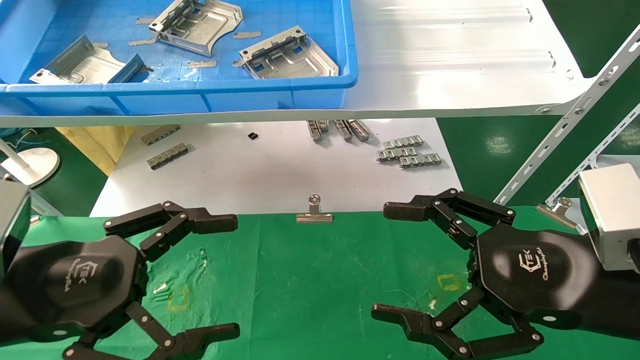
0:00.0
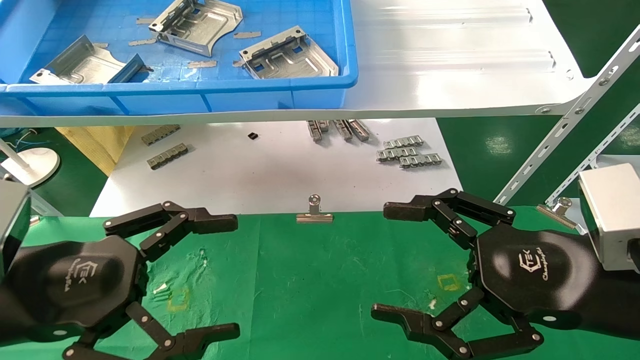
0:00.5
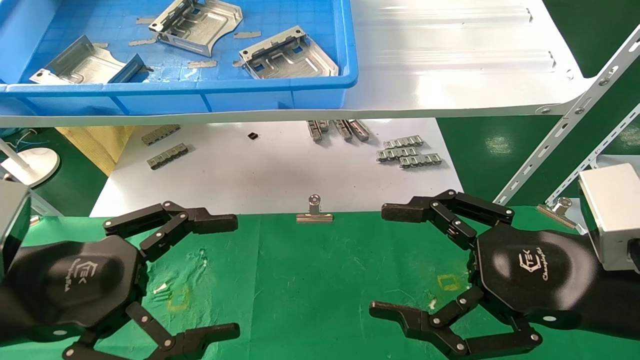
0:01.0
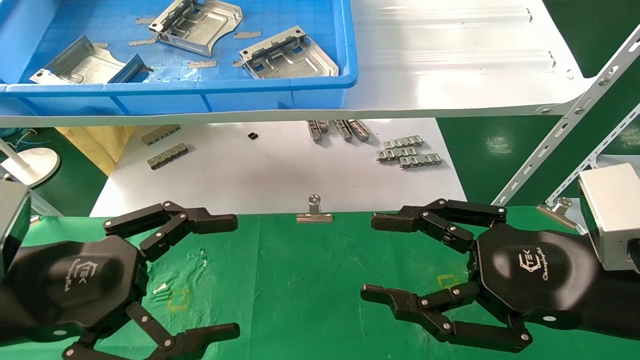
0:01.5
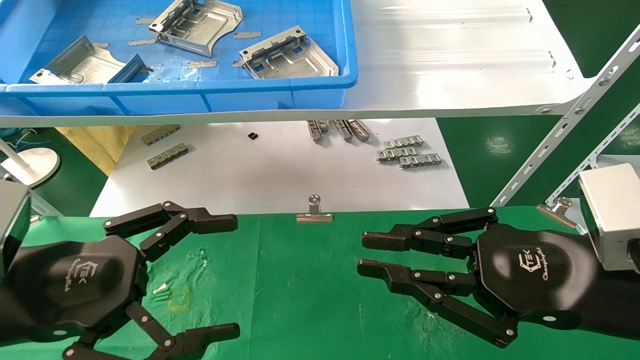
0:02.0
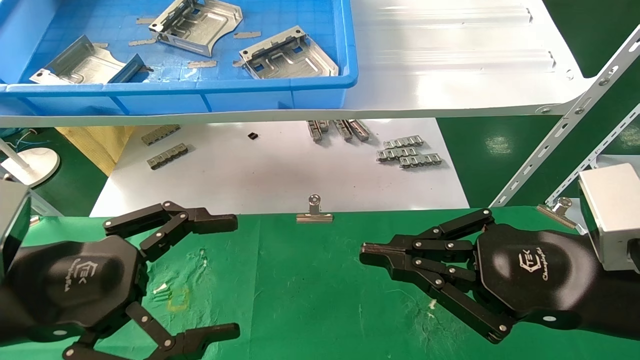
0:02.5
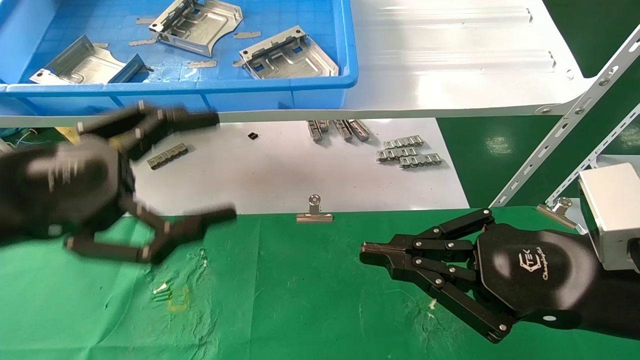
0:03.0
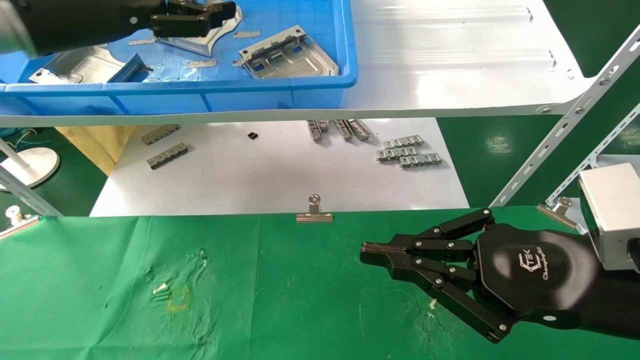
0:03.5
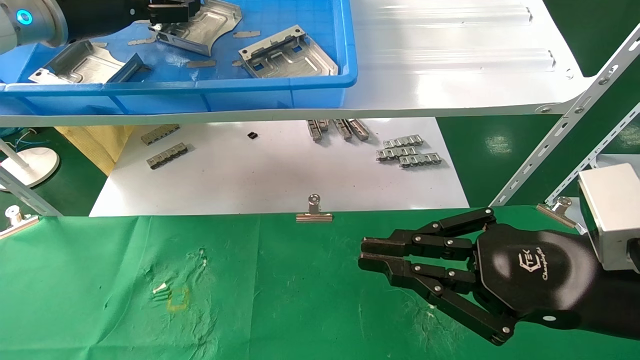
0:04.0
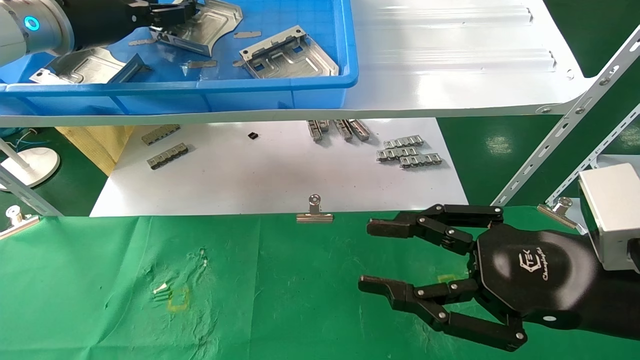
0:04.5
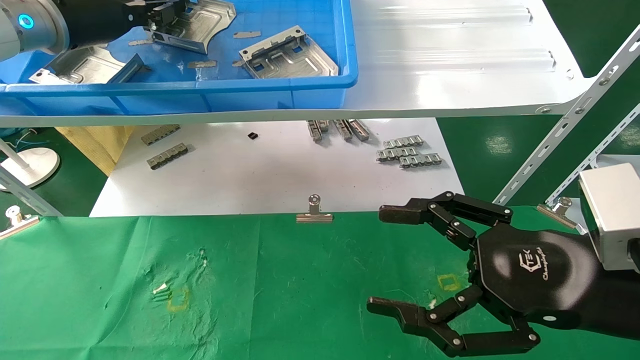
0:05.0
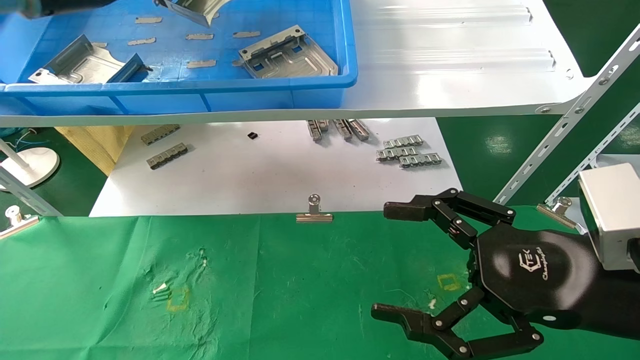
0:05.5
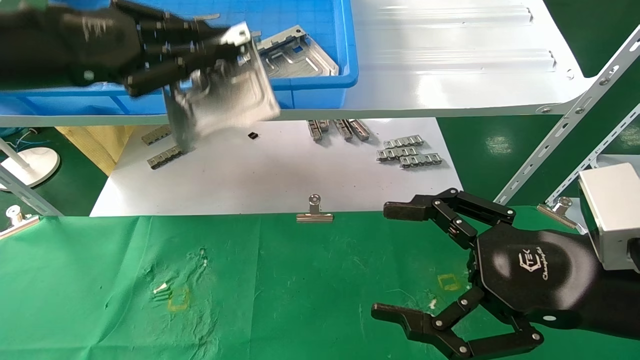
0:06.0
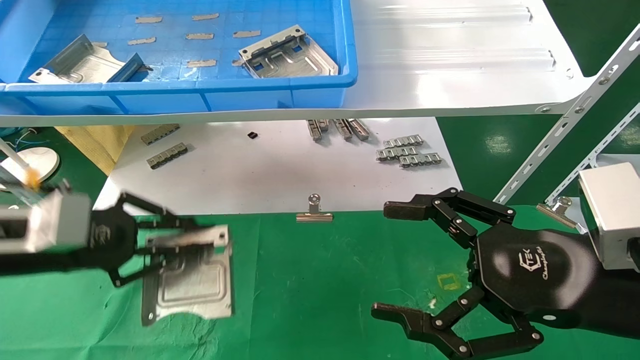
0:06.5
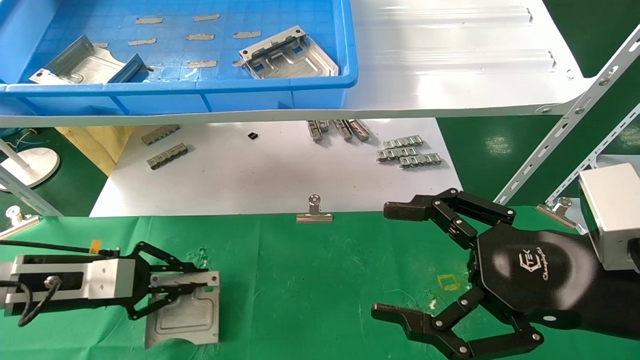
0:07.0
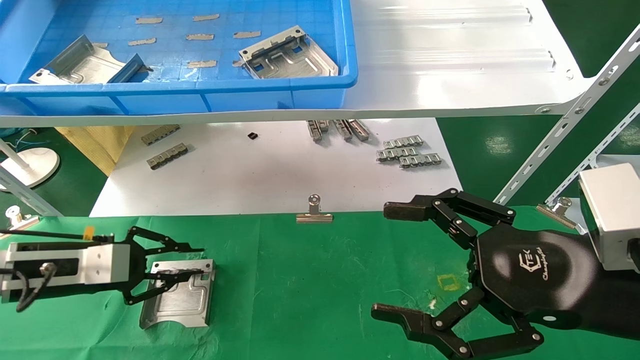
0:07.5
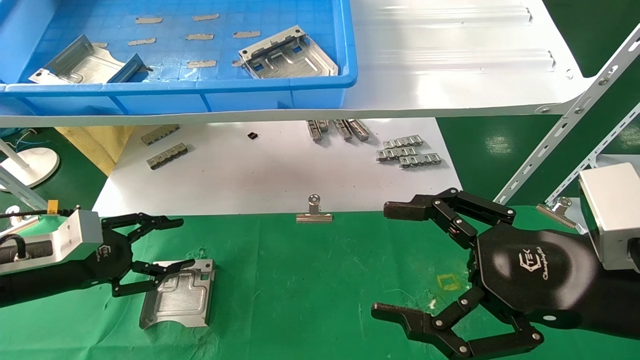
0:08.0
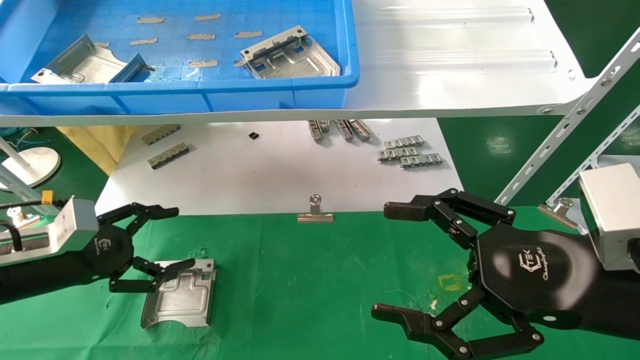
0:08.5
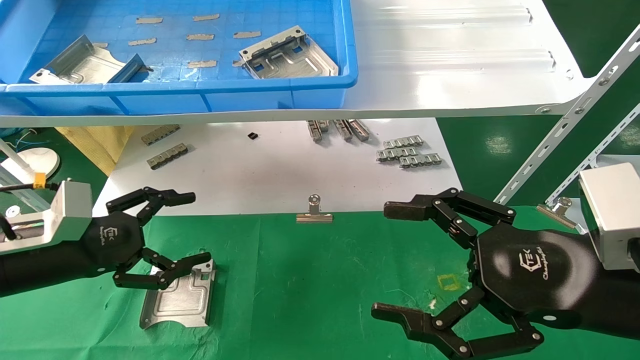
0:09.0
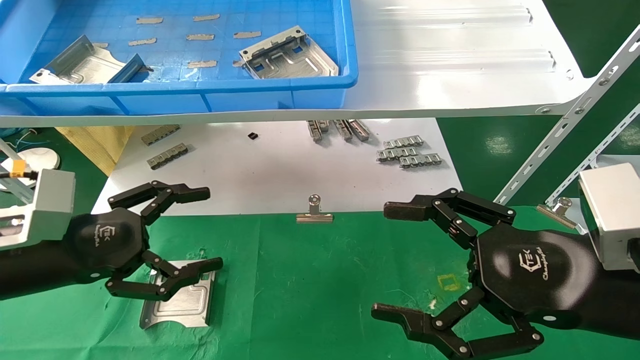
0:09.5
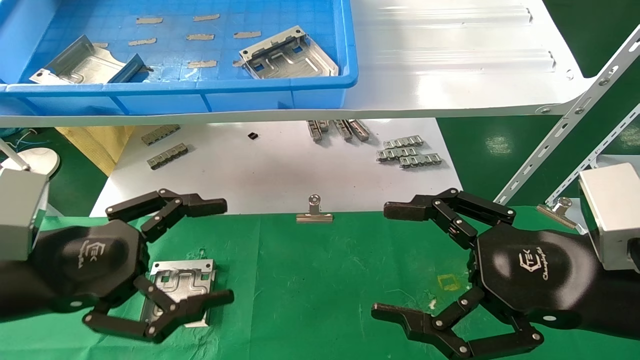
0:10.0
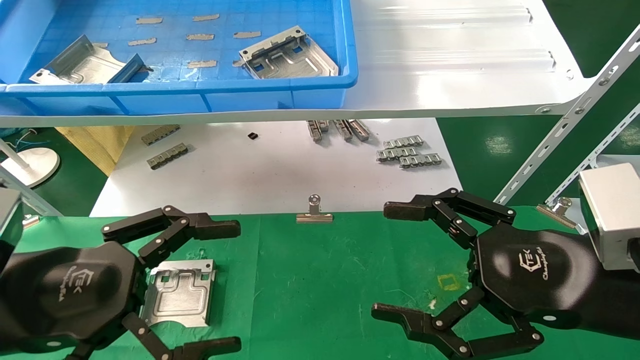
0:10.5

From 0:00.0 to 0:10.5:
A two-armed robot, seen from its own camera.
Task of the whole recording: use the mechanical arm to pick up the parts and place them on the table.
Step, from 0:03.5 to 0:05.0: Pick up the hard drive bracket from the feeding area.
Step, from 0:05.5 to 0:07.5: Place the hard drive bracket into the box.
From 0:00.0 to 0:02.0: The right gripper closes up.
From 0:02.0 to 0:04.0: The left gripper heads forward and upward, covering about 30 cm.
From 0:04.0 to 0:06.5: The left gripper is displaced downward and backward by about 25 cm, and closes up. Meanwhile the right gripper opens up.
From 0:06.5 to 0:08.5: The left gripper shifts approximately 5 cm downward, and opens up.
From 0:08.5 to 0:10.5: The left gripper is displaced backward, to the right and upward by some 20 cm.

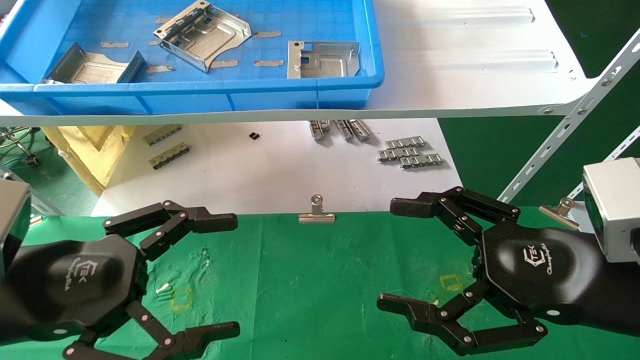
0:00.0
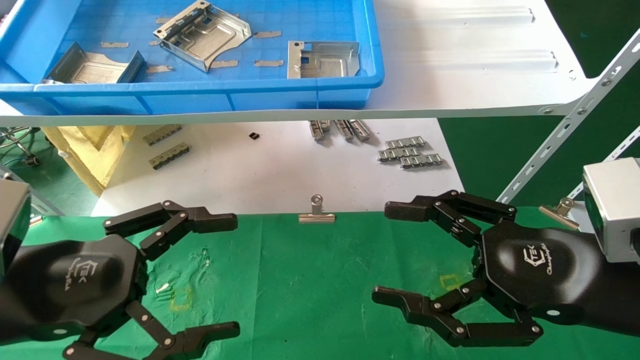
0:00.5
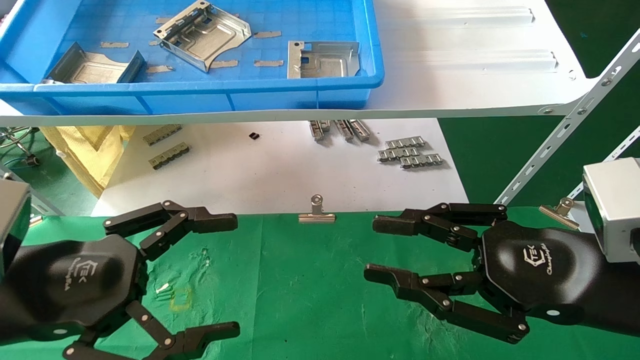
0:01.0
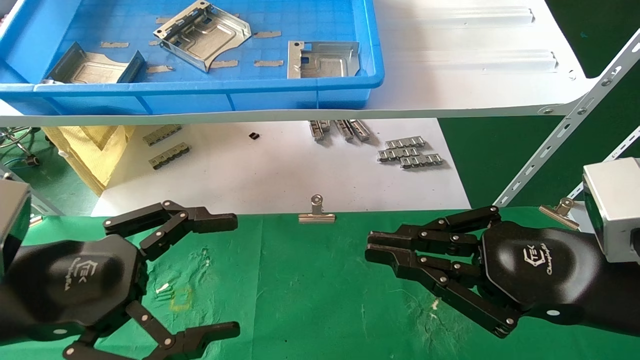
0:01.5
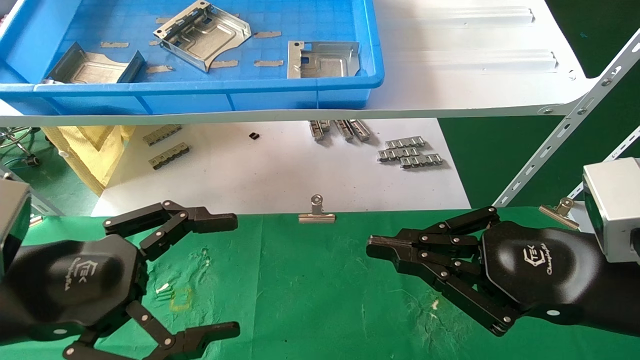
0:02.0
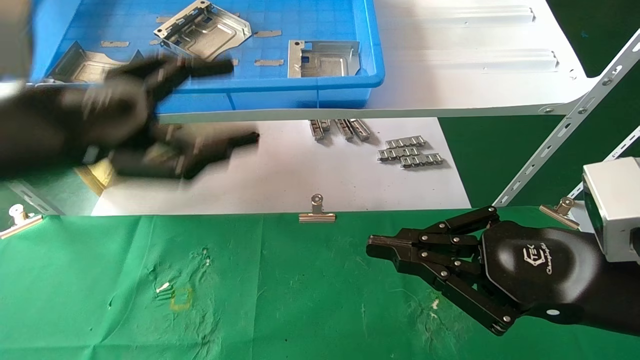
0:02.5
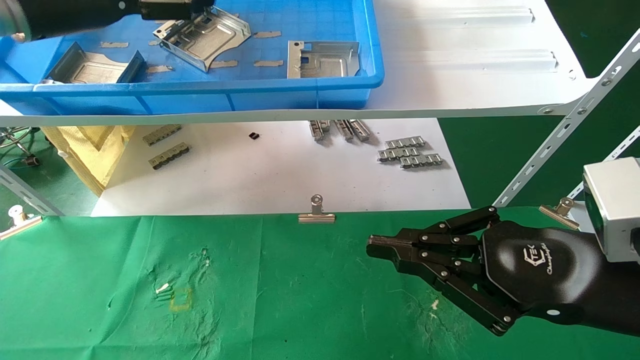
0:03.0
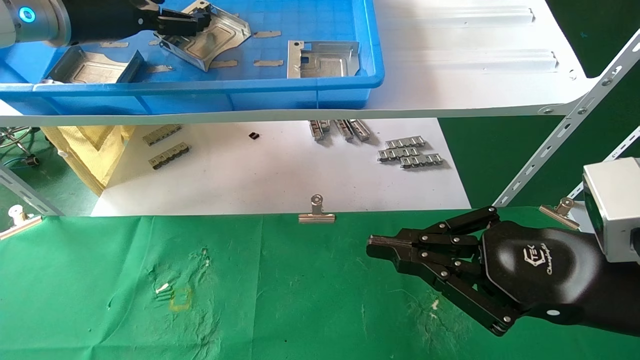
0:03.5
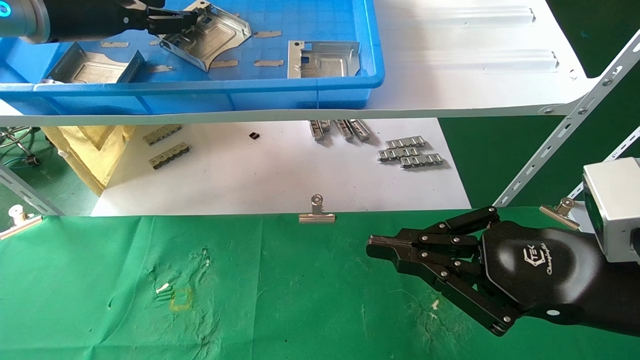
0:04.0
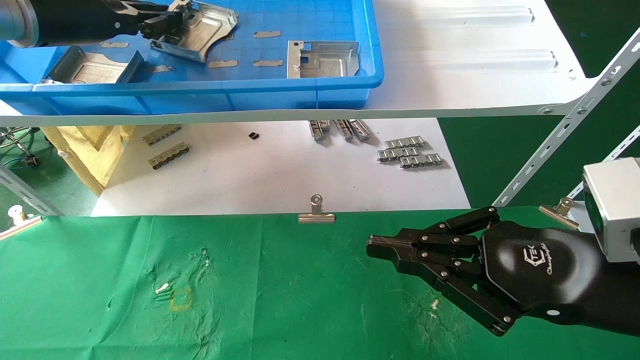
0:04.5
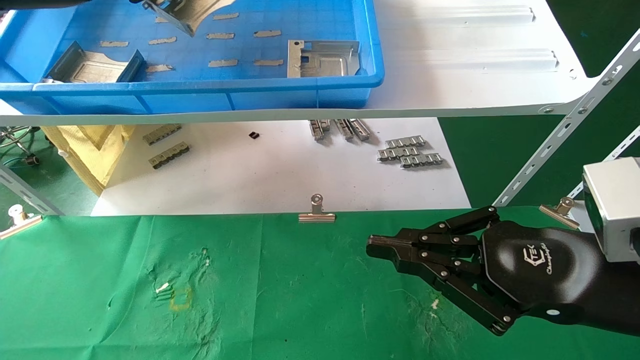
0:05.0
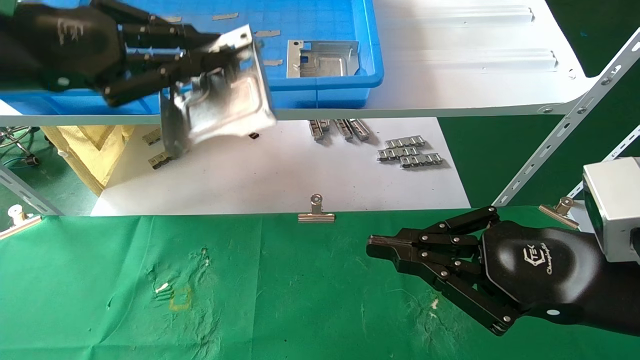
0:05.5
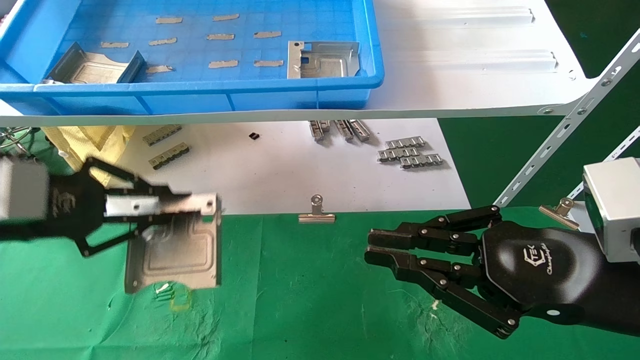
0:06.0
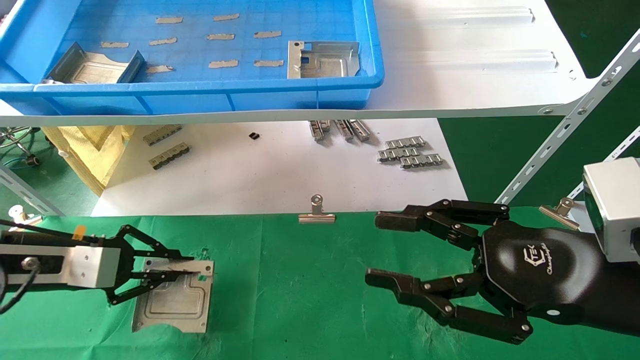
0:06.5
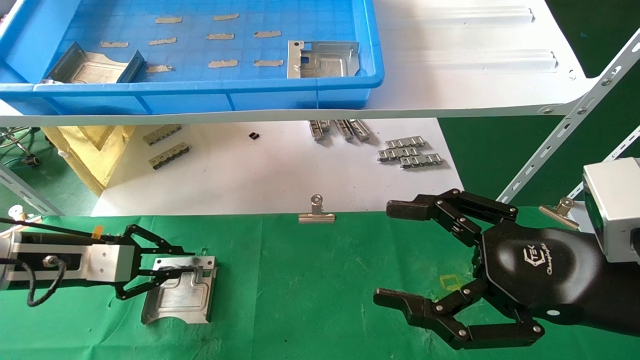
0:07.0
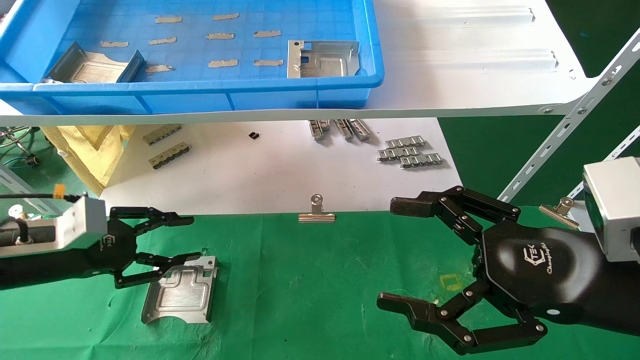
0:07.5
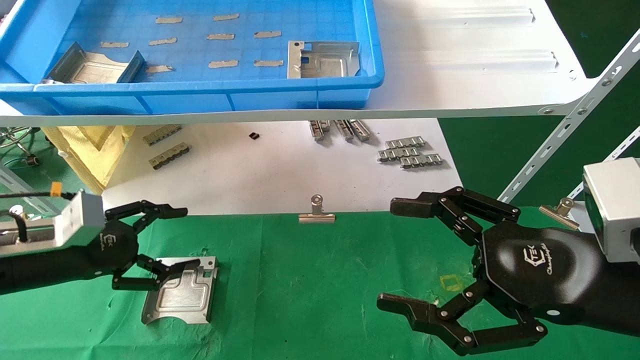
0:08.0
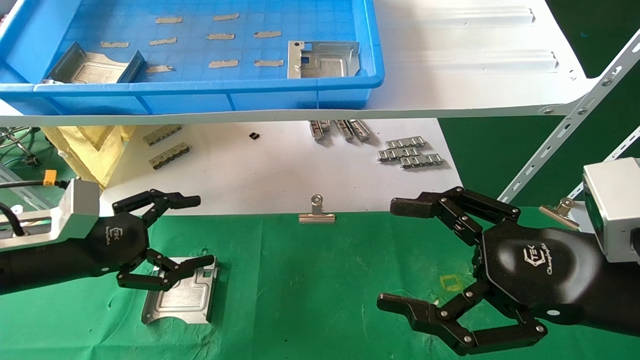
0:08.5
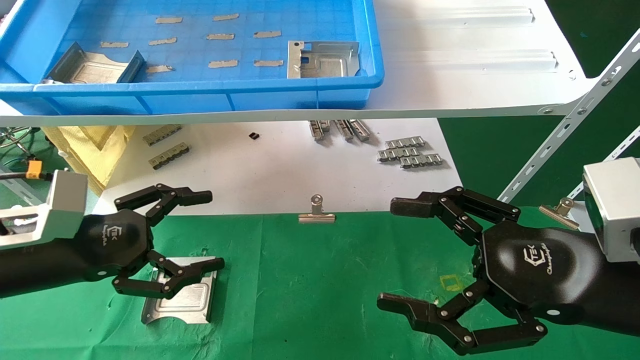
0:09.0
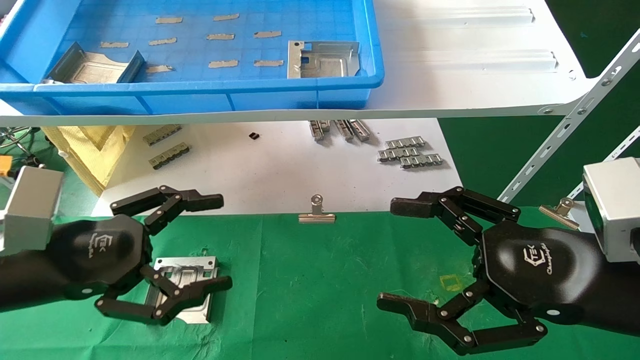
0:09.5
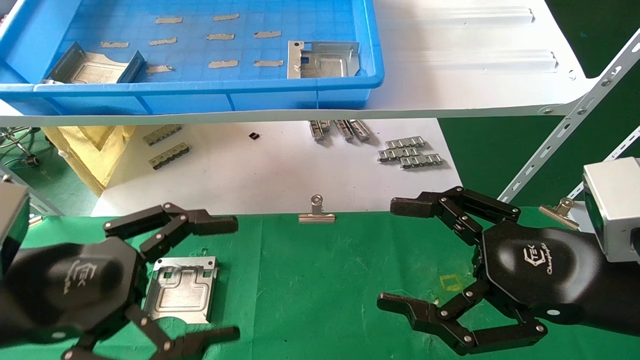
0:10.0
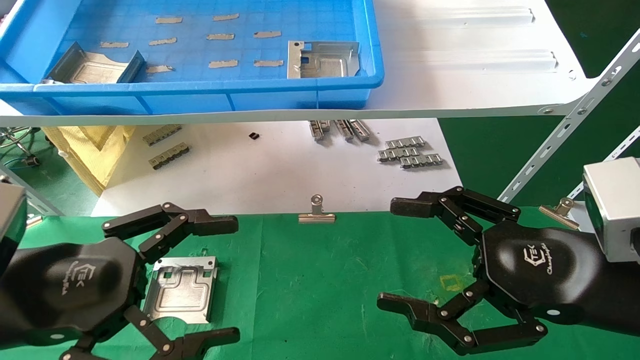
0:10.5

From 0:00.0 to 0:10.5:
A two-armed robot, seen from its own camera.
Task of the whole recording: use the mechanical arm to pick up the parts and place them on the table.
Step, from 0:02.5 to 0:04.5: Pick up the hard drive bracket from the feeding area.
Step, from 0:05.0 to 0:07.0: Place the hard drive bracket into the box.
From 0:00.0 to 0:02.0: The right gripper closes up.
From 0:02.0 to 0:04.0: The left gripper moves upward and forward, roughly 30 cm.
From 0:04.0 to 0:06.5: The left gripper goes approximately 25 cm downward, and closes up; the right gripper opens its fingers.
From 0:06.5 to 0:08.5: The left gripper opens up; the right gripper opens up.
From 0:08.5 to 0:10.5: The left gripper moves backward and to the right, about 15 cm.
